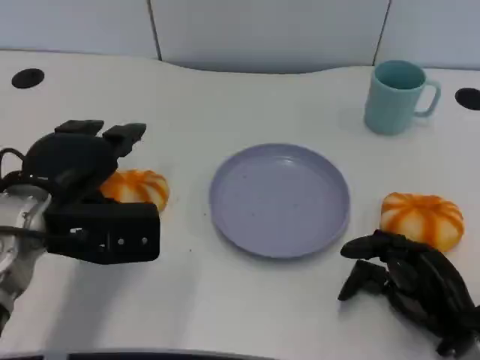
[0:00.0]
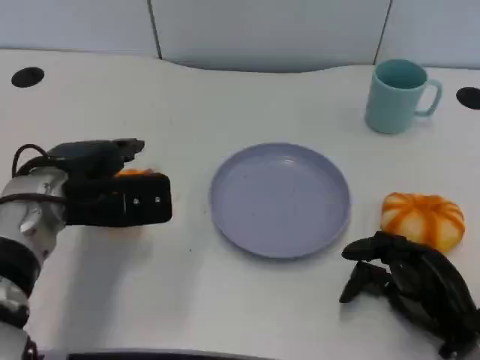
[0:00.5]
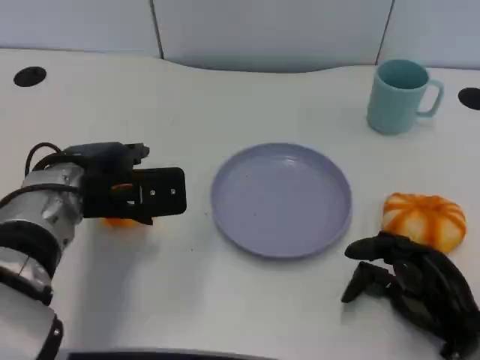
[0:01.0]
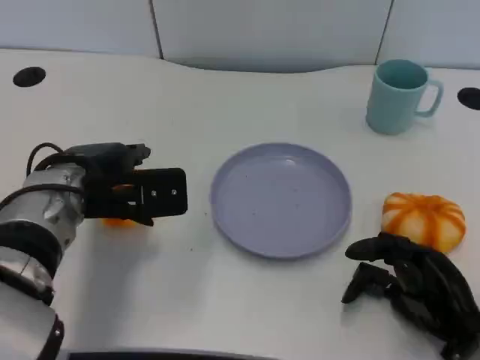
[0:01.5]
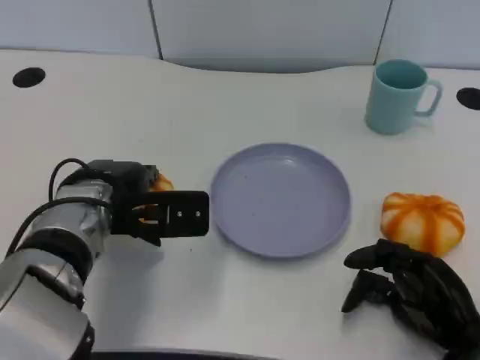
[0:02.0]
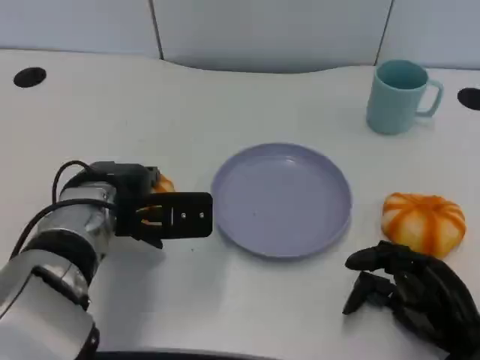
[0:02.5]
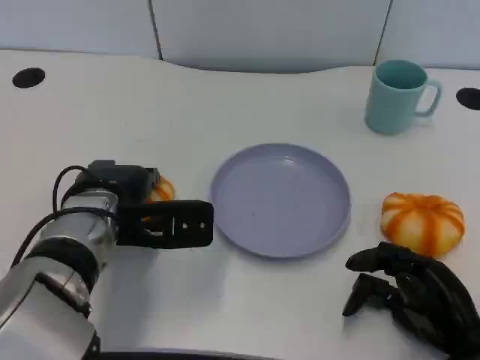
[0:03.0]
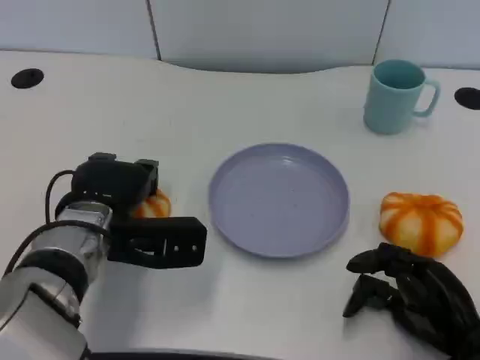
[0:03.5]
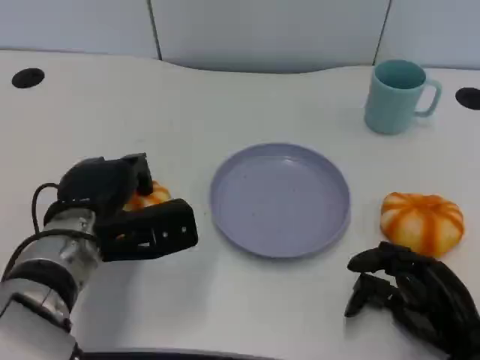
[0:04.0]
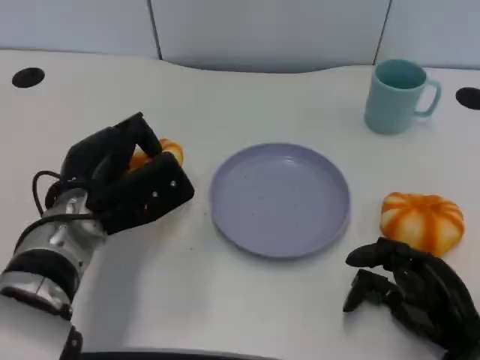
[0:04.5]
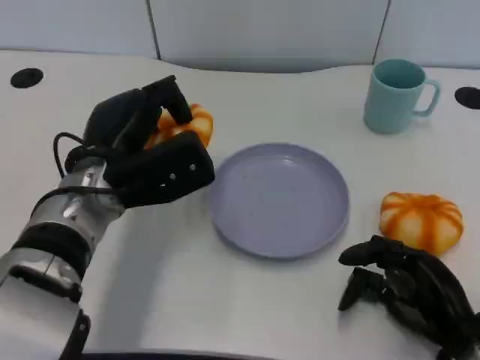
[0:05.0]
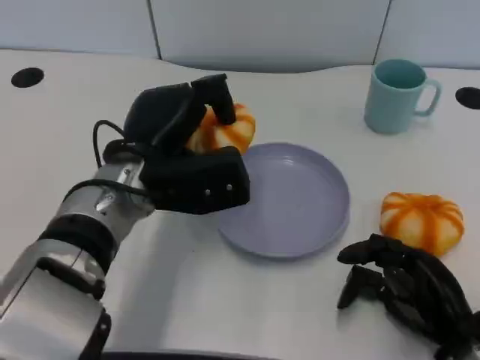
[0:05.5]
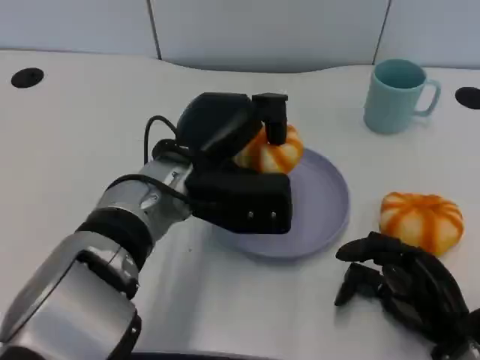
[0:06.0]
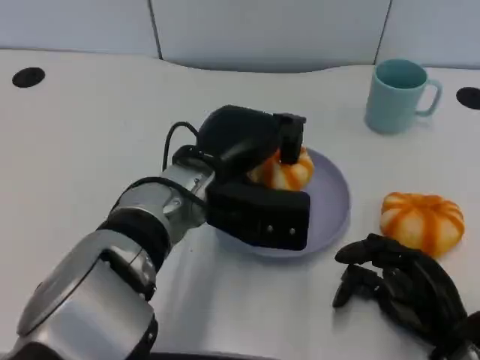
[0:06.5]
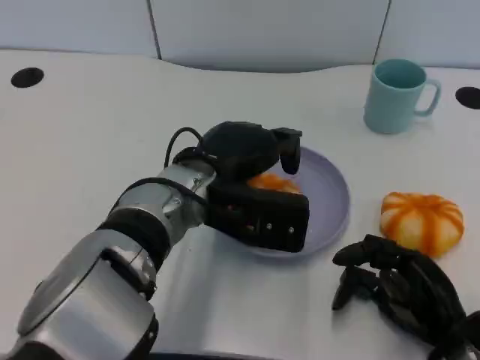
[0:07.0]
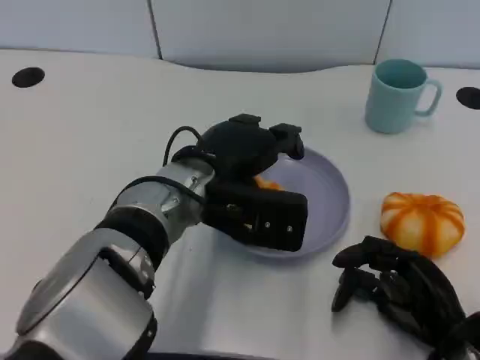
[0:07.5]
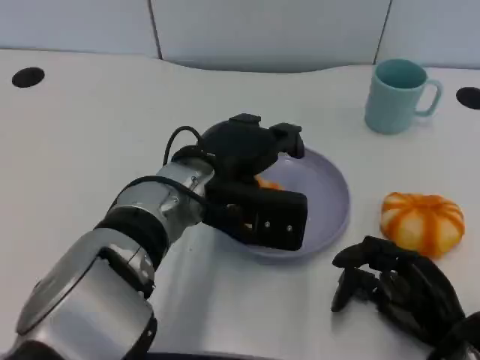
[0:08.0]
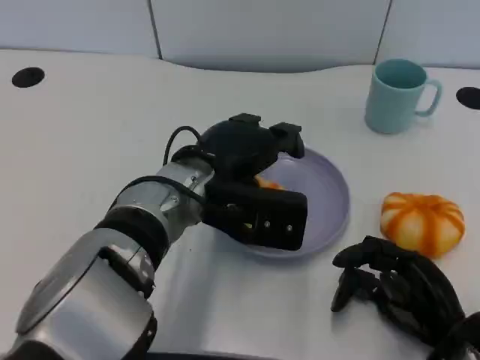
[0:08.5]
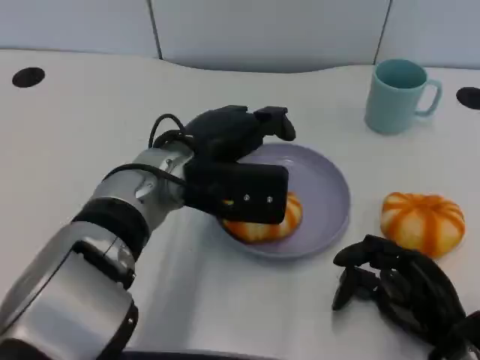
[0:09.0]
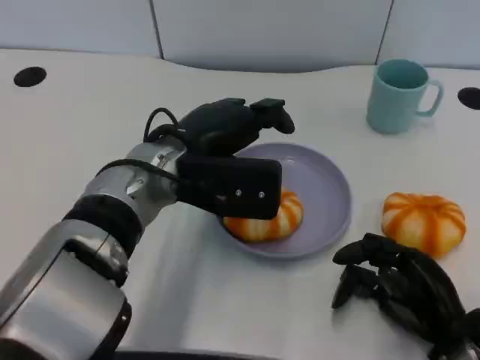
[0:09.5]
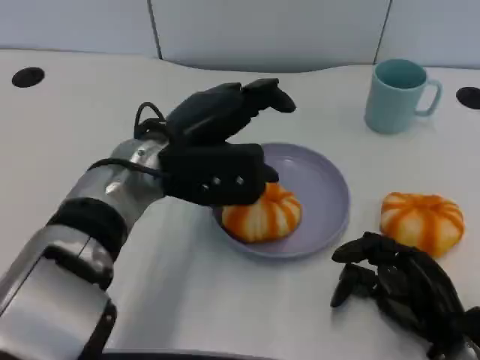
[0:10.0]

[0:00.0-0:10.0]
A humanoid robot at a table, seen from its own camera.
Task of the whole recording: Grasp the bread from the table and place it into the plate.
0:00.0 to 0:02.0: The left hand moves to the right, approximately 5 cm.
0:04.0 to 0:06.0: The left hand travels to the right and upward by approximately 10 cm.
0:06.0 to 0:08.0: The hands stay close to where they were, moving slightly.
0:08.0 to 0:10.0: The left hand moves about 5 cm.

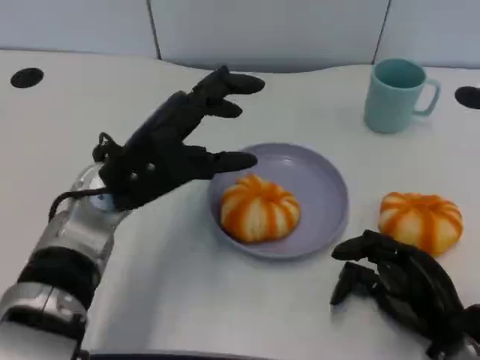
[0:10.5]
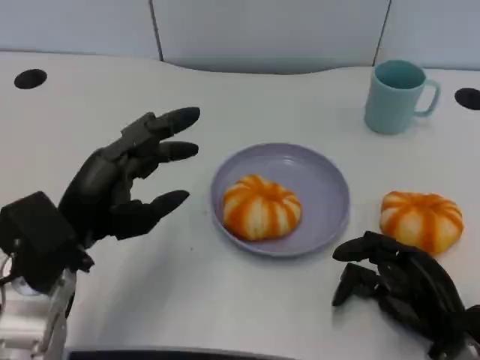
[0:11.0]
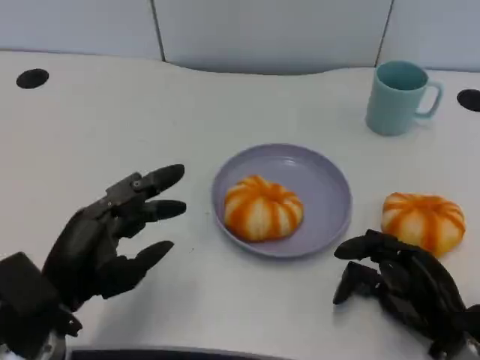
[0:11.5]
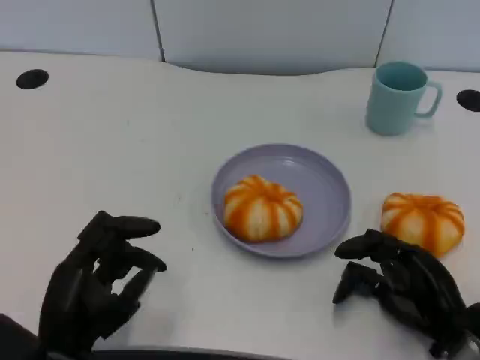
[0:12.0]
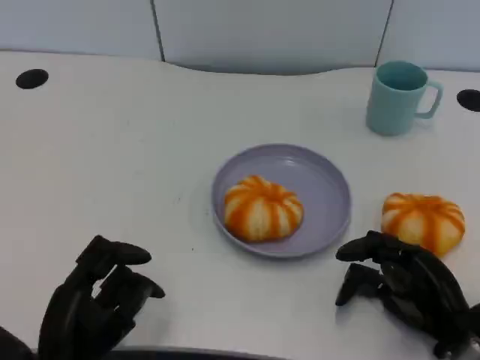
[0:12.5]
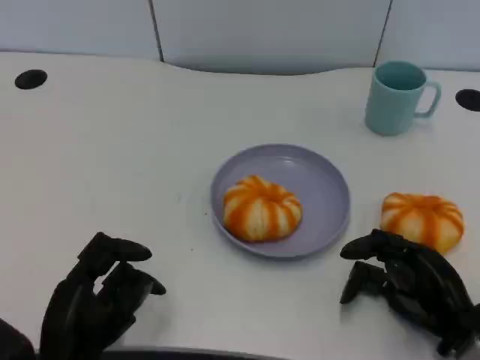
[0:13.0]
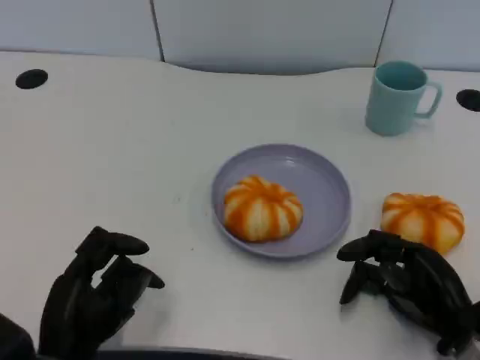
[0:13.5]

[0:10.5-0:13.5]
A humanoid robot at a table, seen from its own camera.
Task of the whole recording: Grasp the bread from the table and place it into the plate.
0:10.5 to 0:12.0: The left hand moves backward and downward, some 15 cm.
0:12.0 to 0:13.5: The hands make only small movements.
